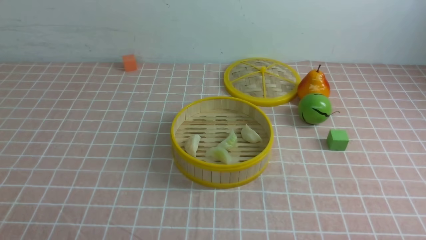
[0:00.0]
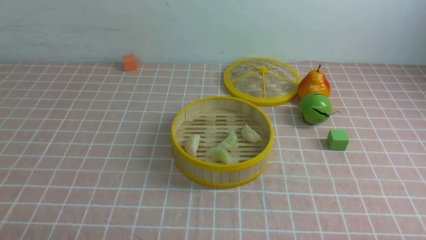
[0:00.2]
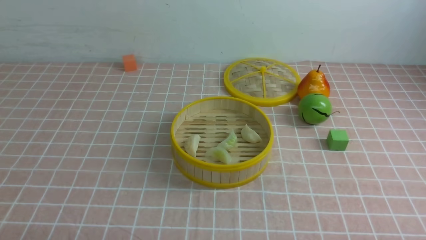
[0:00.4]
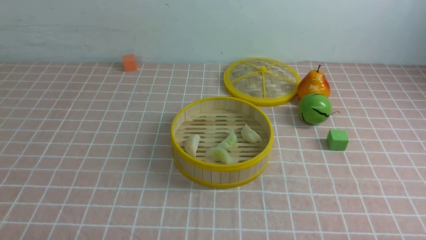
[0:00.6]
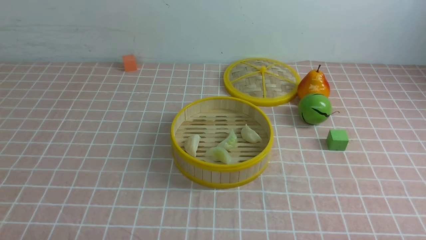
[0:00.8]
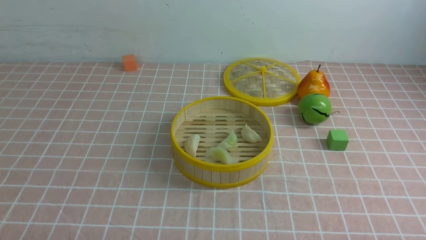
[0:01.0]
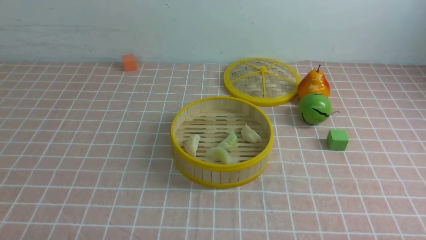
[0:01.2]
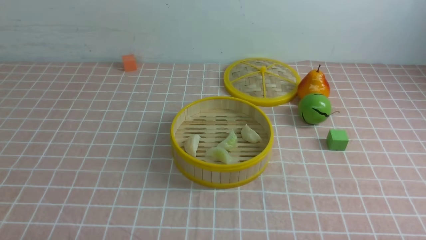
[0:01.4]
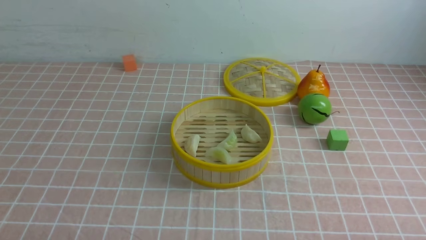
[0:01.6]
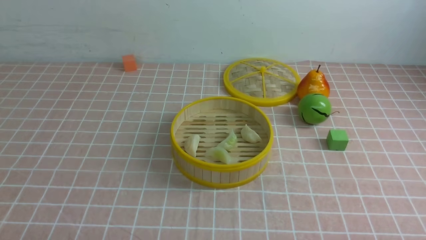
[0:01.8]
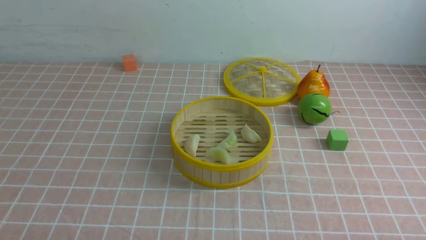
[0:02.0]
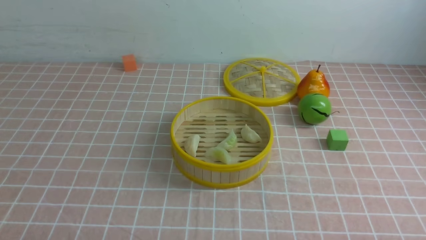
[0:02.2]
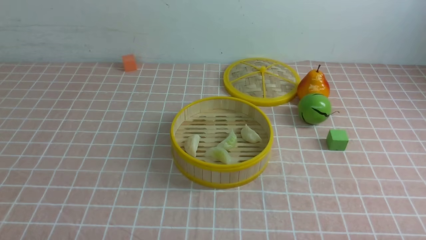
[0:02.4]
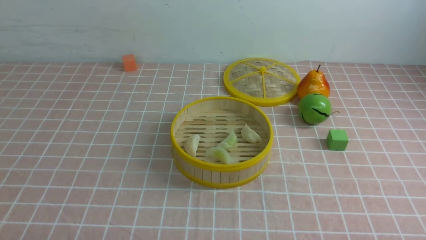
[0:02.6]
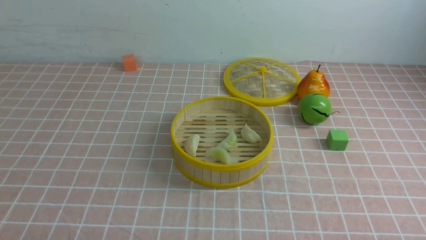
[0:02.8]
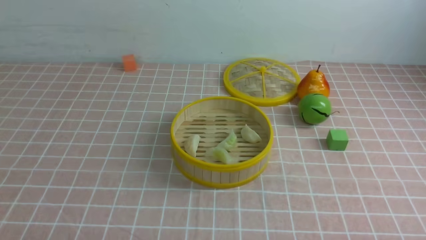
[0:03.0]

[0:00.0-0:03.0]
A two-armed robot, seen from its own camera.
Task of the whole recording: put the dumplings into the steamer on the table with the pink tablecloth.
0:01.6 to 0:03.0: Both grippers stay put.
